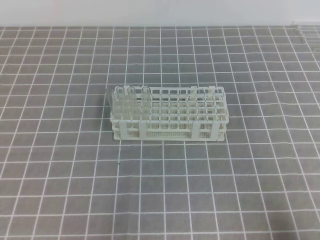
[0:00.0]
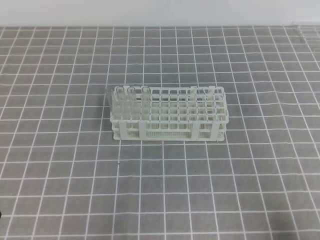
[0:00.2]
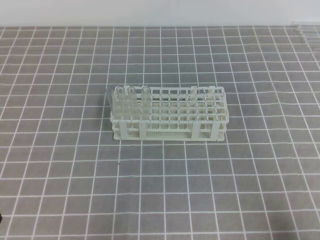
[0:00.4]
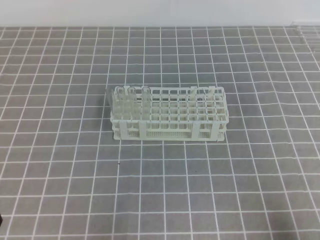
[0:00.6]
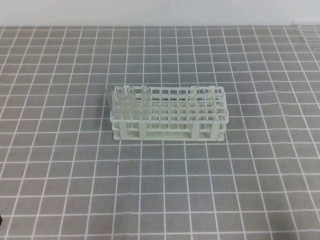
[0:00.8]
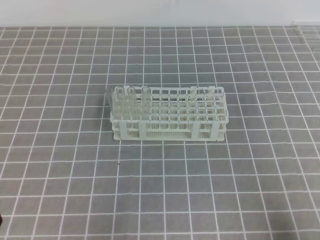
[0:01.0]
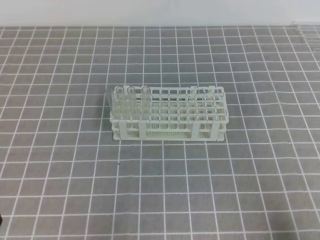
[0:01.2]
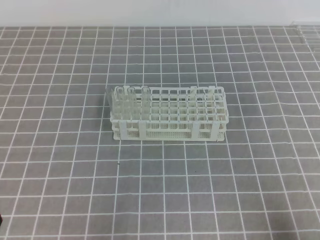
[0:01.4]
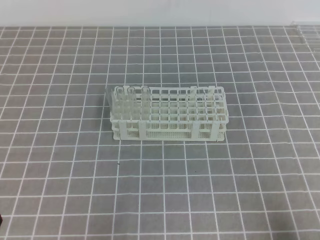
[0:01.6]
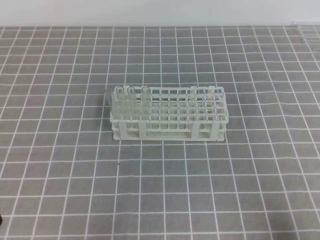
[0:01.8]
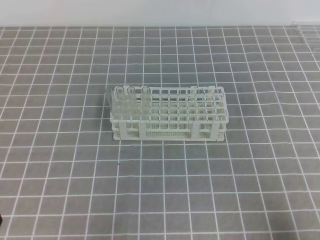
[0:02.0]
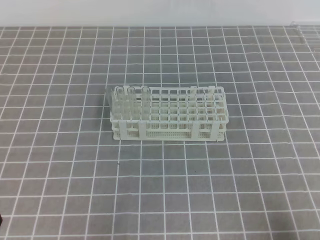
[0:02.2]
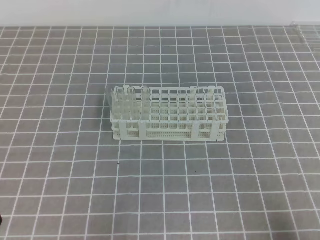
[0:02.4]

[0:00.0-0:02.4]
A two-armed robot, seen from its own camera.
0:00.0 to 0:01.2: Neither gripper changes place.
0:01.2 to 0:02.4: Both grippers stay put.

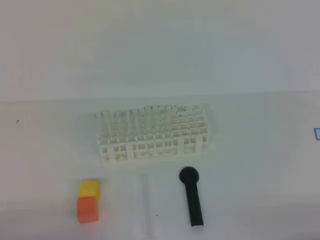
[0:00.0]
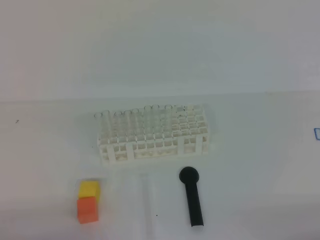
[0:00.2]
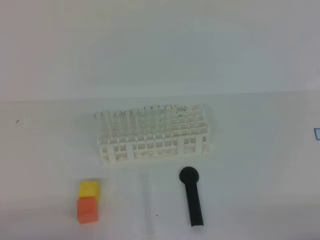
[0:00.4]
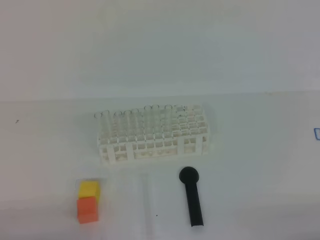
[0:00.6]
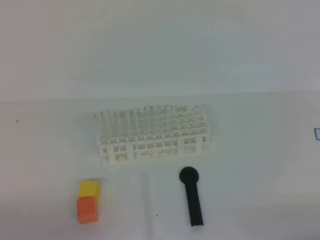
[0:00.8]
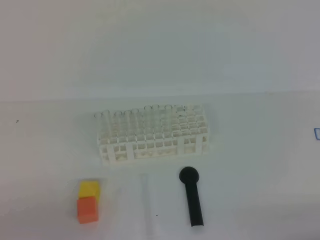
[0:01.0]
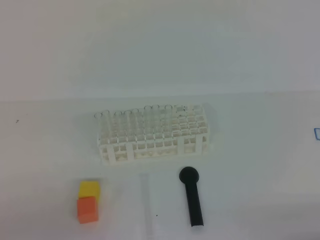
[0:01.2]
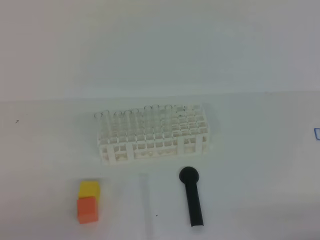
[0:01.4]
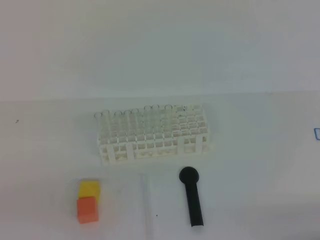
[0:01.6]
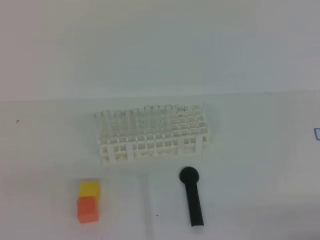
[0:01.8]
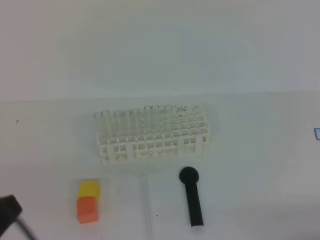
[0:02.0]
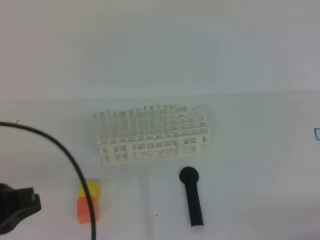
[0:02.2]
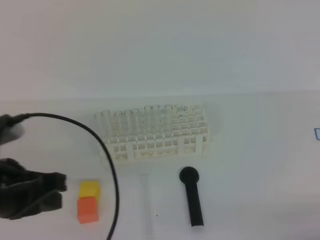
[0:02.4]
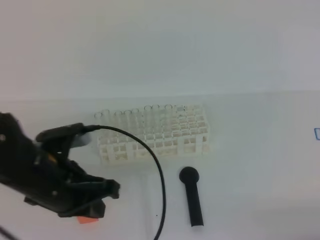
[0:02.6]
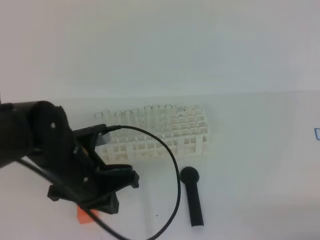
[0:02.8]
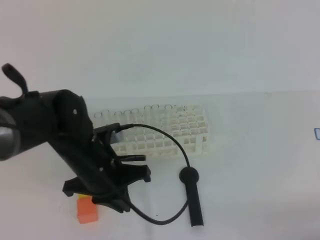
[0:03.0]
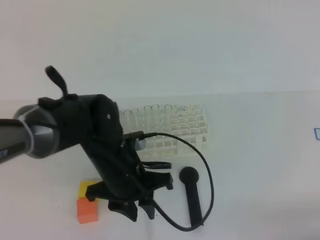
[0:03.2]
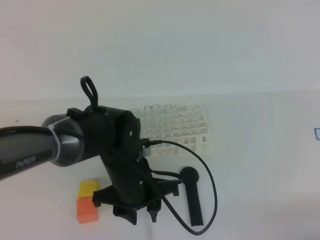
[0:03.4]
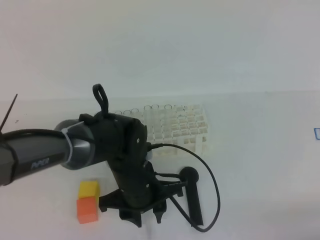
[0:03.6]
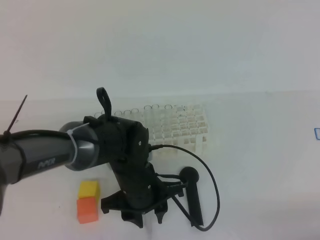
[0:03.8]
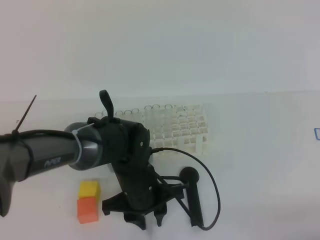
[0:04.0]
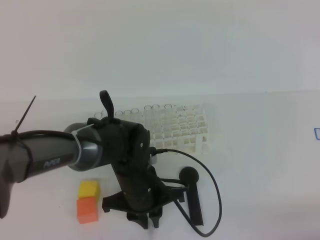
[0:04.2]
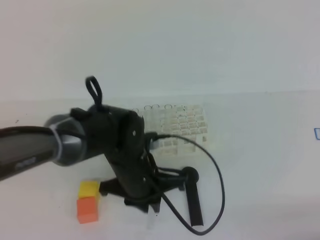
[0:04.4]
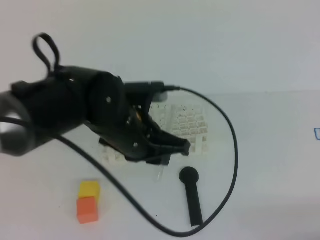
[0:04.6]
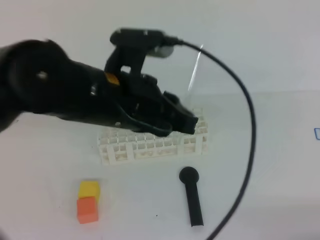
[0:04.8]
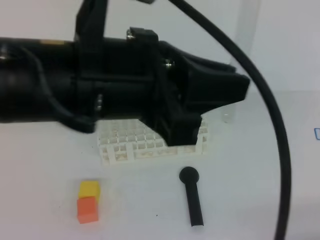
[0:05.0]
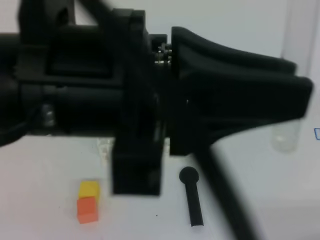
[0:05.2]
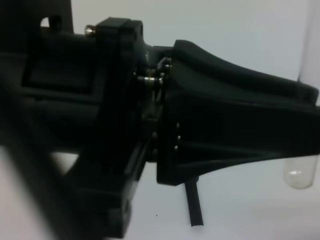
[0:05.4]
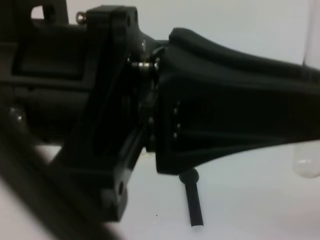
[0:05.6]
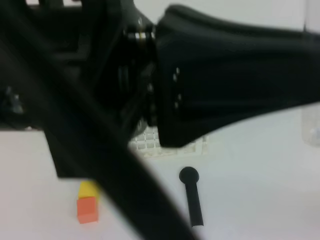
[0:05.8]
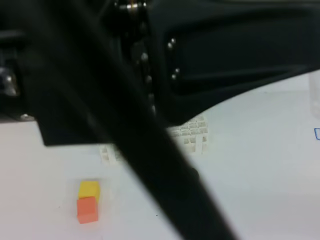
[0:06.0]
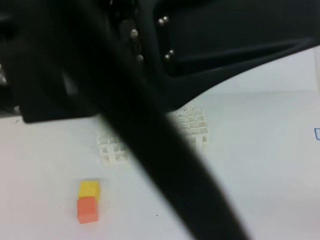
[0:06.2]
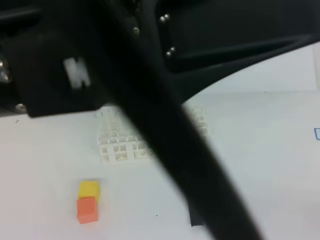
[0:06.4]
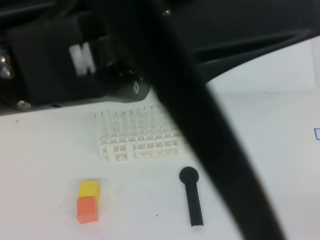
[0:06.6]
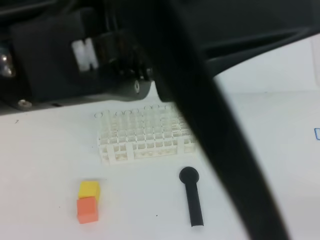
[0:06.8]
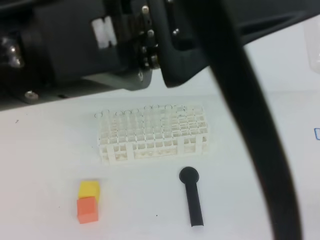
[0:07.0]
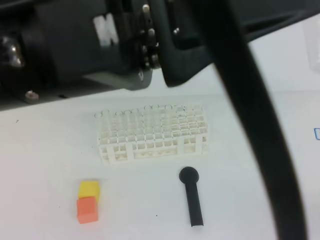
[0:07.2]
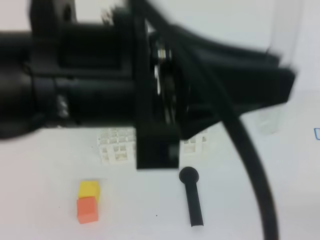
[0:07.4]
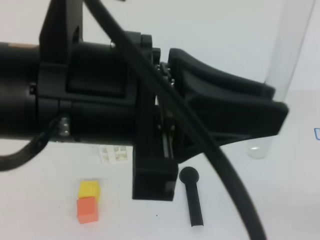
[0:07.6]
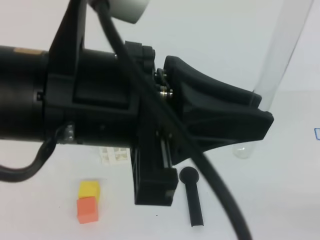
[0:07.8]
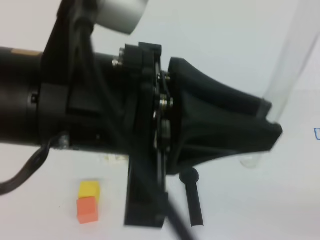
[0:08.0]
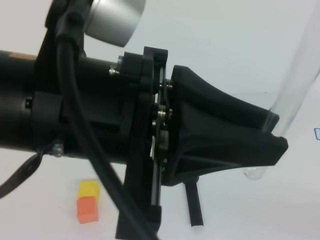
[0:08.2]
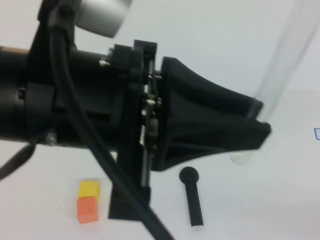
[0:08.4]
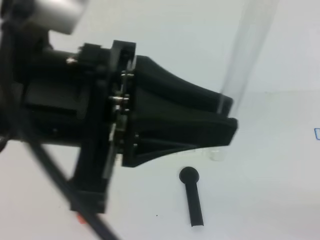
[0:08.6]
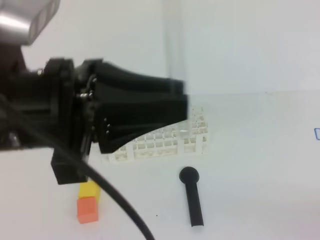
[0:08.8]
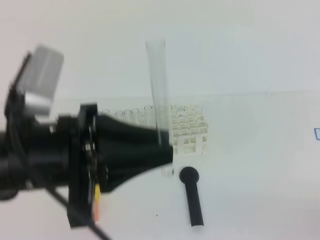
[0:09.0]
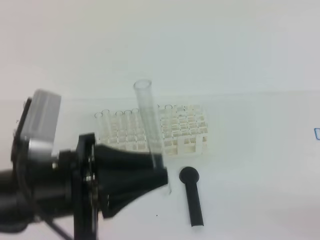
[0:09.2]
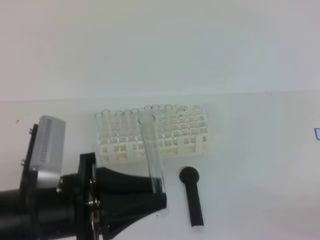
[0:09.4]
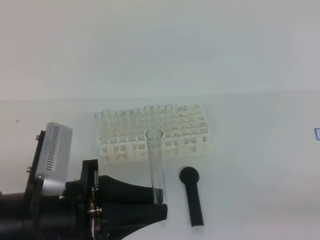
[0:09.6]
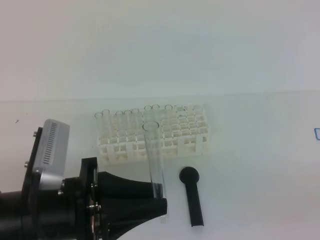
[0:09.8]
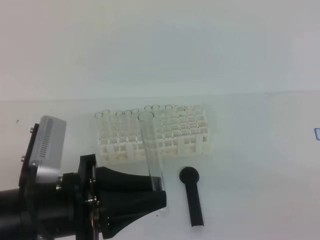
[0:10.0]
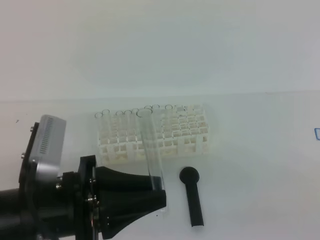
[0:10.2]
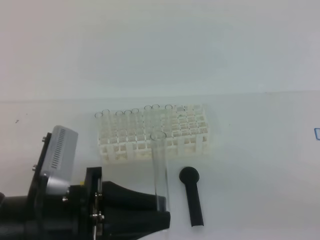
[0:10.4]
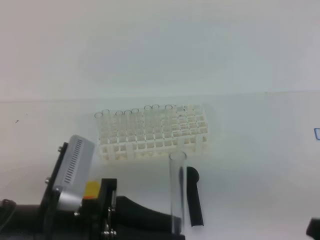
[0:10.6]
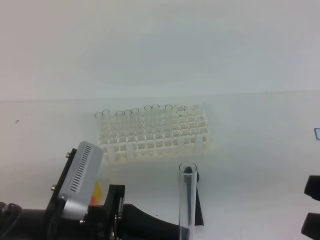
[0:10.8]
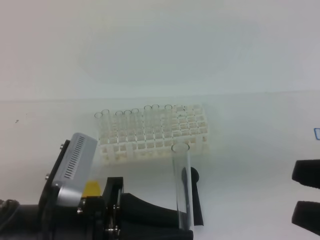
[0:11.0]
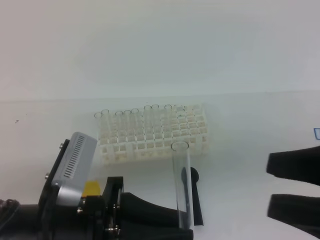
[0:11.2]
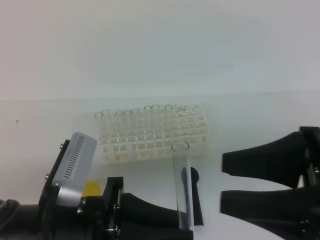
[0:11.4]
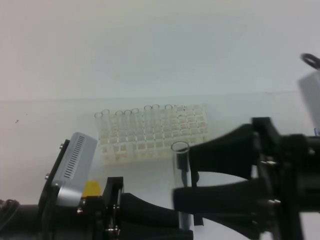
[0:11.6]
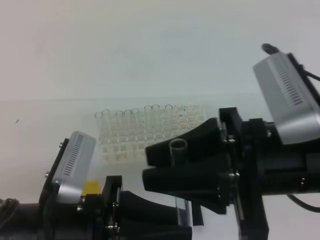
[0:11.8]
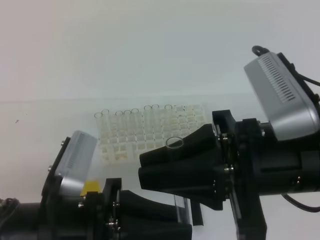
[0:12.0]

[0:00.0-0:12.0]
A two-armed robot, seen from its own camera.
0:01.6 to 0:03.0: The left gripper moves forward and to the right, roughly 25 cm.
0:03.0 to 0:04.4: The left gripper goes approximately 5 cm to the right, and opens and closes again.
0:04.4 to 0:06.0: The left gripper goes some 30 cm upward and backward.
0:07.6 to 0:09.0: The left gripper is displaced downward and to the left by approximately 10 cm.
0:09.0 to 0:10.4: The left gripper travels downward by some 10 cm. The right gripper is displaced upward and to the left by some 15 cm.
0:10.4 to 0:12.0: The right gripper travels to the left and forward by some 20 cm, and opens and closes again.

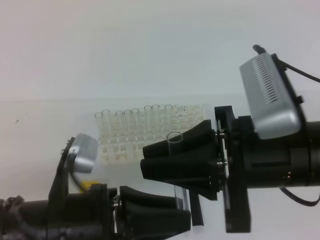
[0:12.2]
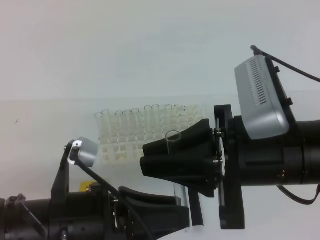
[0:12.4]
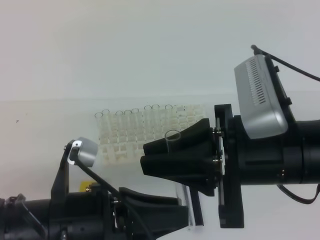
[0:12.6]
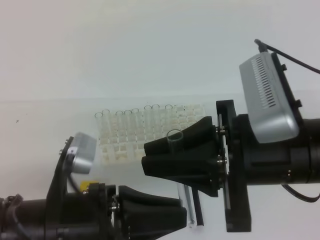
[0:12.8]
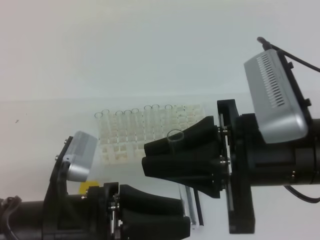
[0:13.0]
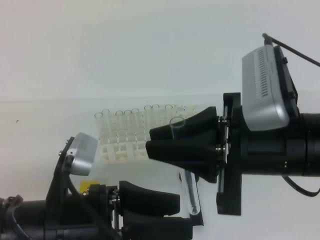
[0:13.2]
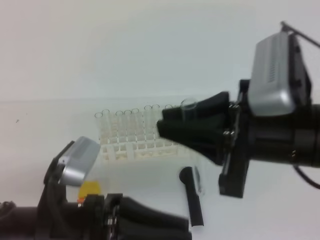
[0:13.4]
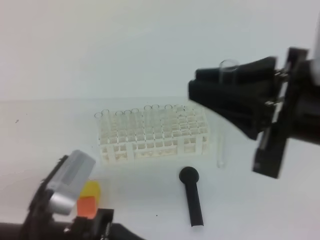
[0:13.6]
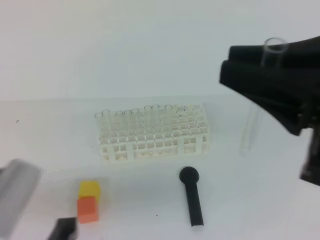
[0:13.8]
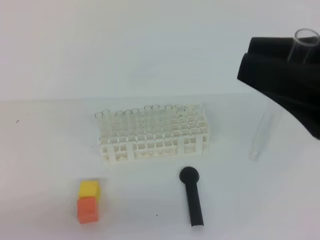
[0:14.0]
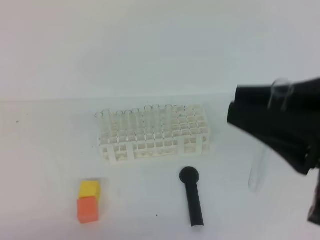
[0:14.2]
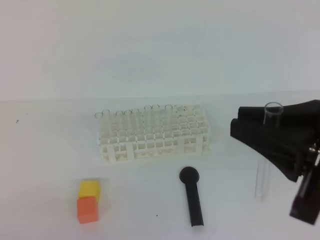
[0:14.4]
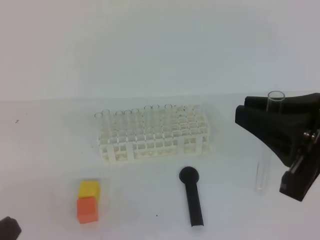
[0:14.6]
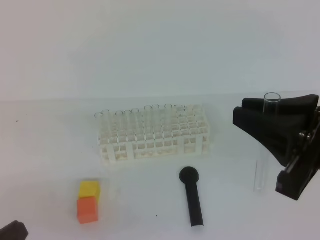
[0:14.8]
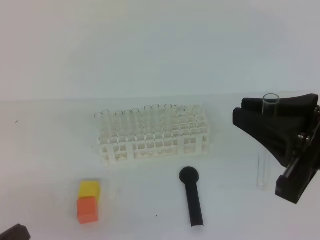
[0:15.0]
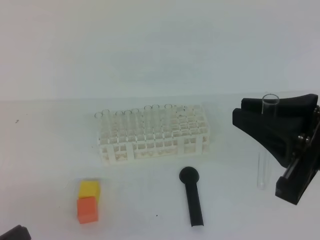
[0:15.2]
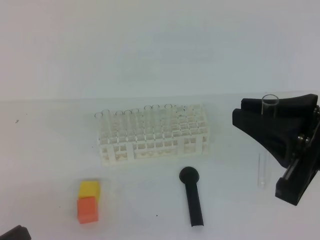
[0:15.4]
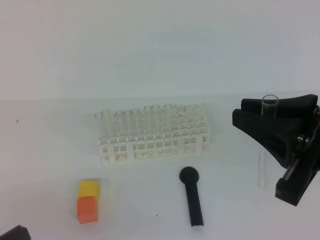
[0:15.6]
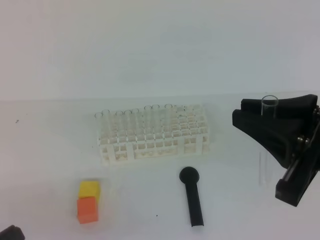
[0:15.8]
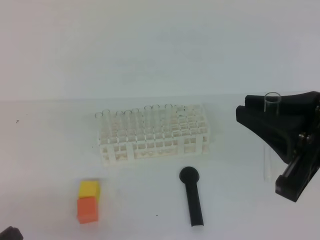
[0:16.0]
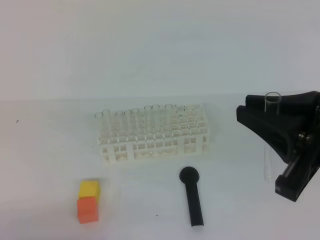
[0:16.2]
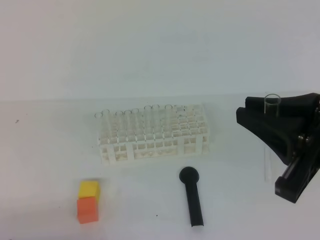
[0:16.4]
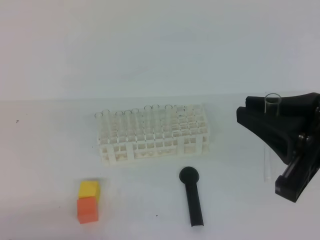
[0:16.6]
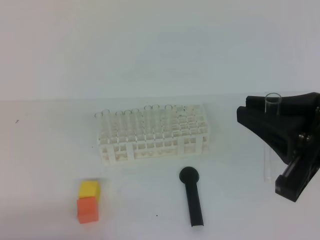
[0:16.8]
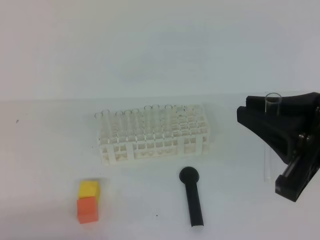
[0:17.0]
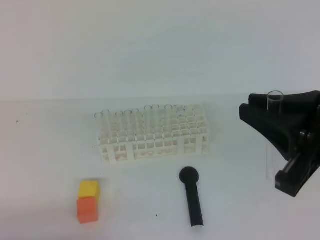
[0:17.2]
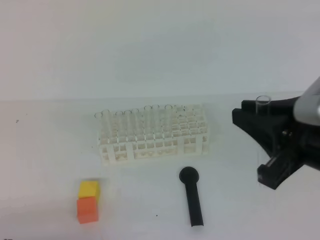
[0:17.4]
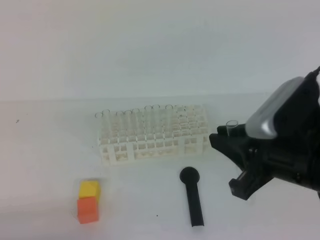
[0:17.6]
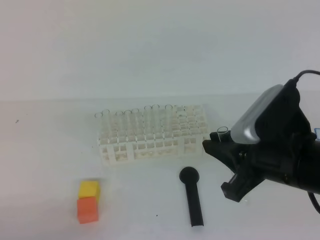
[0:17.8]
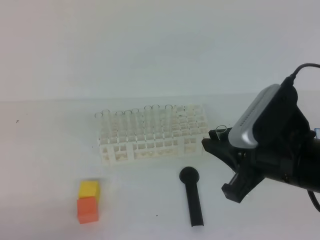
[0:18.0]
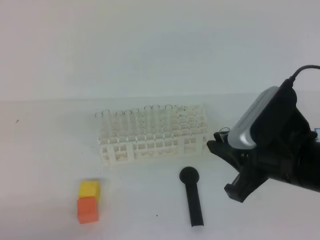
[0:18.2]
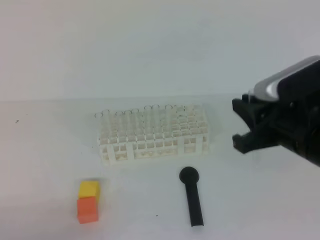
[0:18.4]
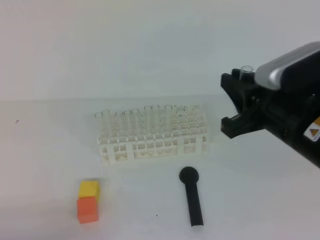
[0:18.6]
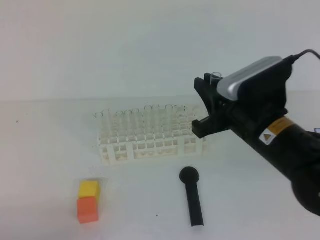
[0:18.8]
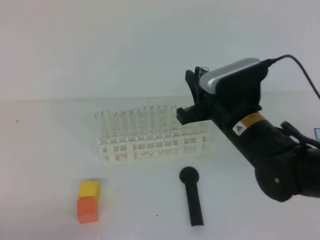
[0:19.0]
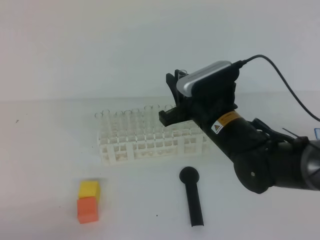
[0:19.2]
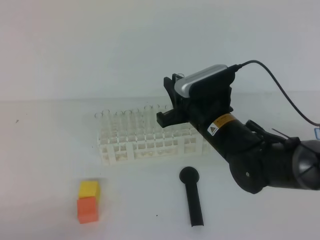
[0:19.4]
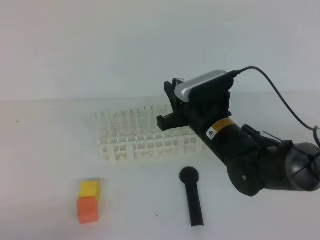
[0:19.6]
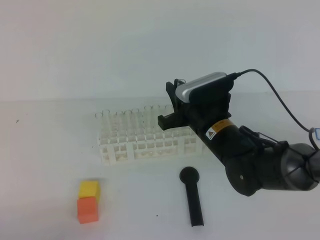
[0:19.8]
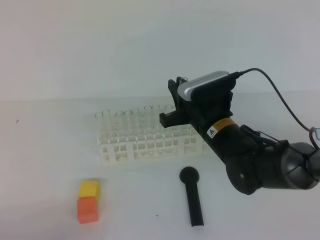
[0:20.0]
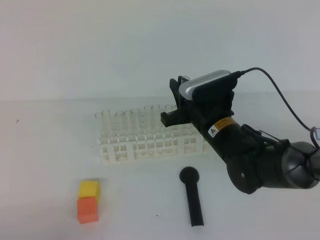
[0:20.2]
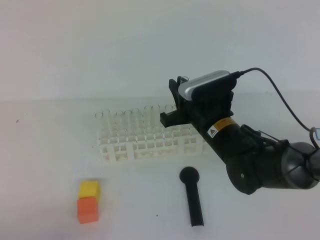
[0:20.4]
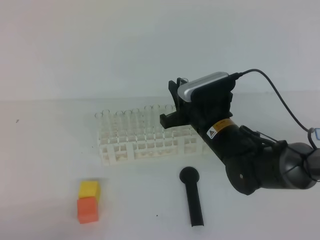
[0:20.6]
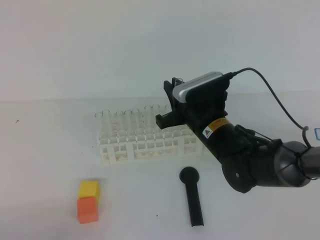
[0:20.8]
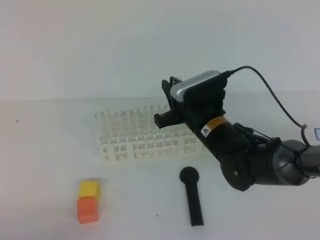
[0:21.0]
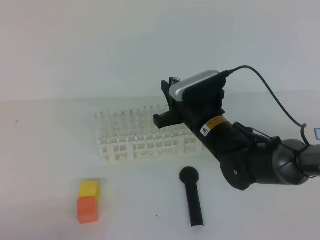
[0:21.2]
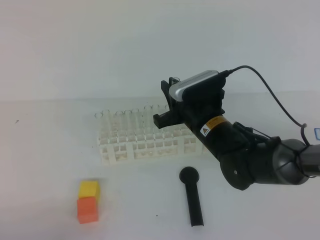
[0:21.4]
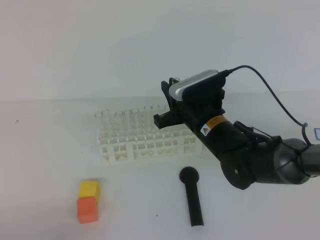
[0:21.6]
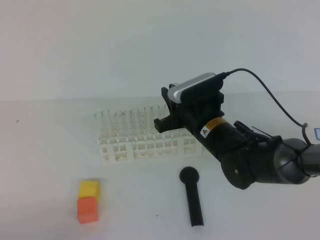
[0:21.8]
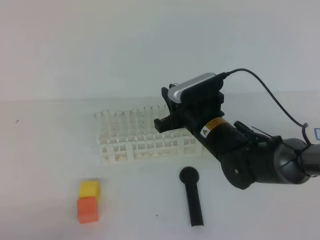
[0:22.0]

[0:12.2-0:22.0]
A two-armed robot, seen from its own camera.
0:12.2 to 0:13.6: The left gripper opens and closes again.
0:13.6 to 0:15.0: The right gripper changes place by about 5 cm. The left gripper goes about 15 cm to the left and backward.
0:16.4 to 0:17.8: The right gripper goes roughly 5 cm downward.
0:17.8 to 0:19.2: The right gripper moves forward, to the left and downward, roughly 15 cm.
0:19.2 to 0:22.0: There are only small adjustments of the grippers.
